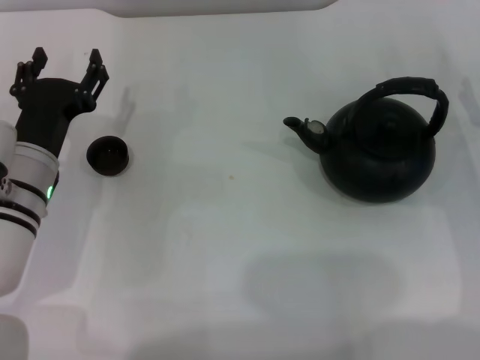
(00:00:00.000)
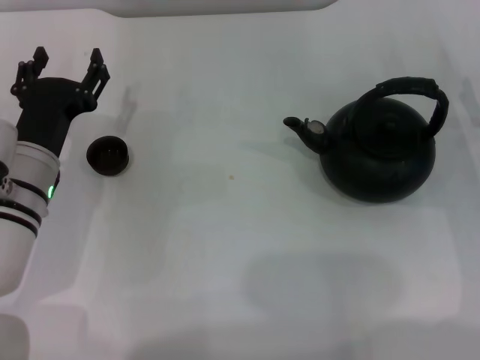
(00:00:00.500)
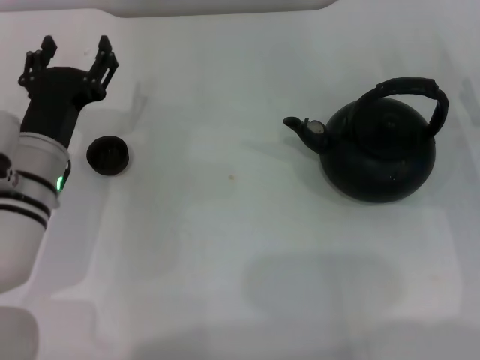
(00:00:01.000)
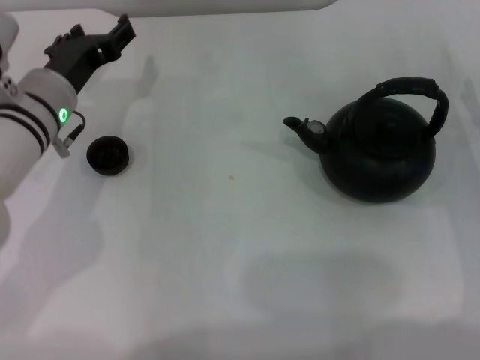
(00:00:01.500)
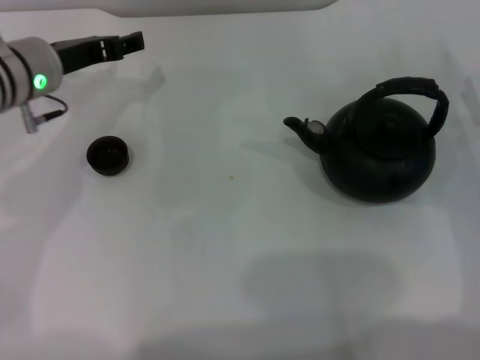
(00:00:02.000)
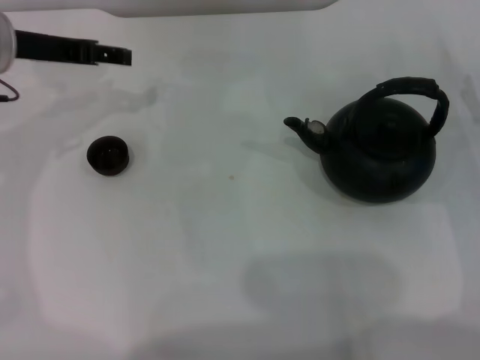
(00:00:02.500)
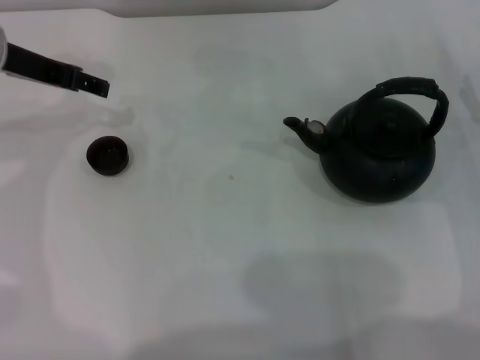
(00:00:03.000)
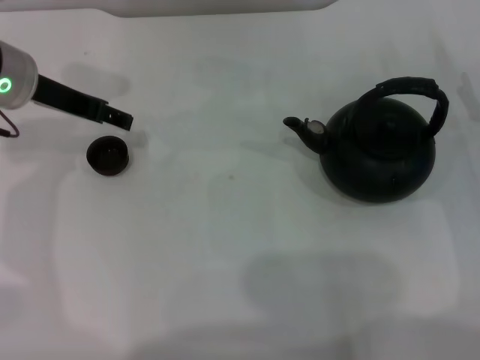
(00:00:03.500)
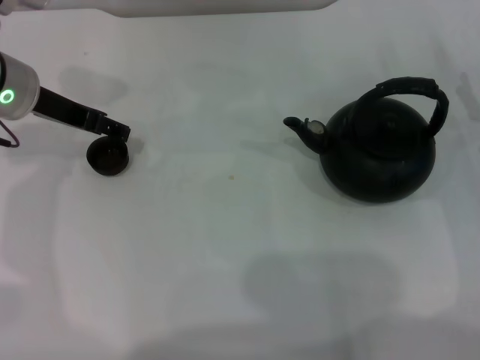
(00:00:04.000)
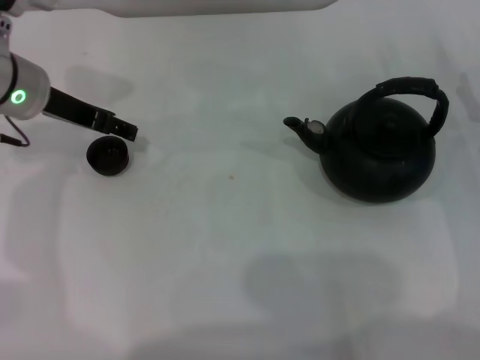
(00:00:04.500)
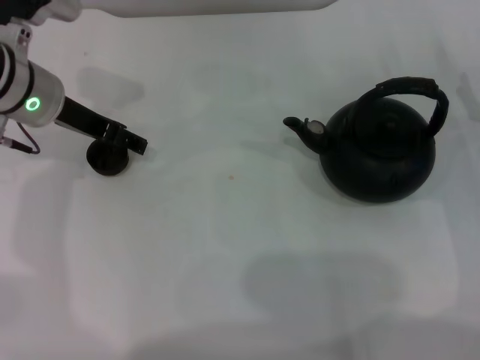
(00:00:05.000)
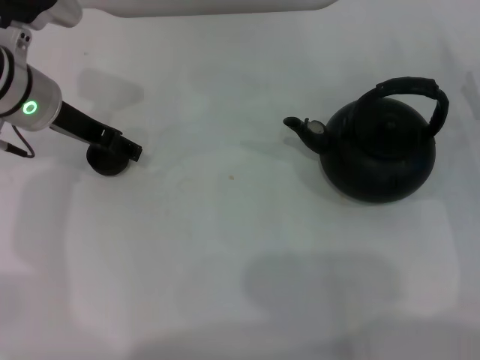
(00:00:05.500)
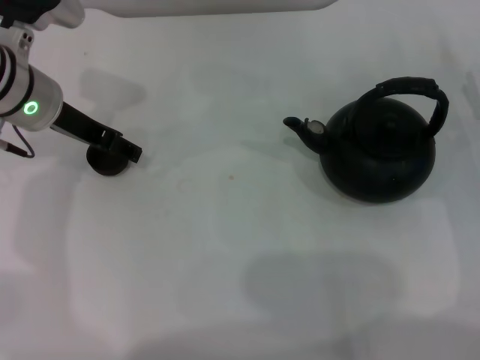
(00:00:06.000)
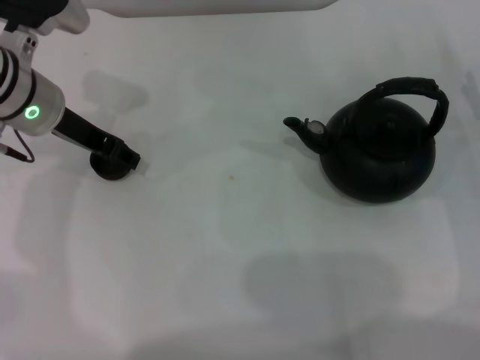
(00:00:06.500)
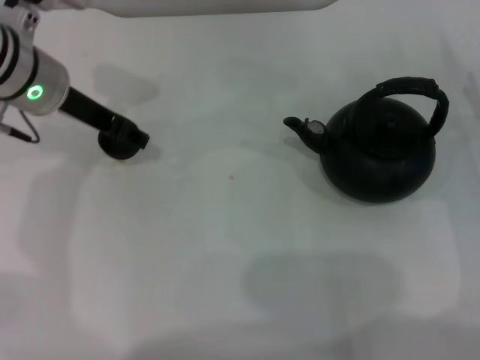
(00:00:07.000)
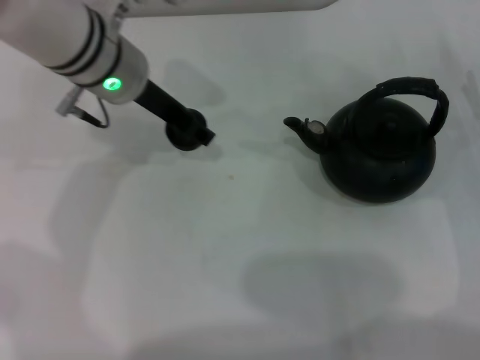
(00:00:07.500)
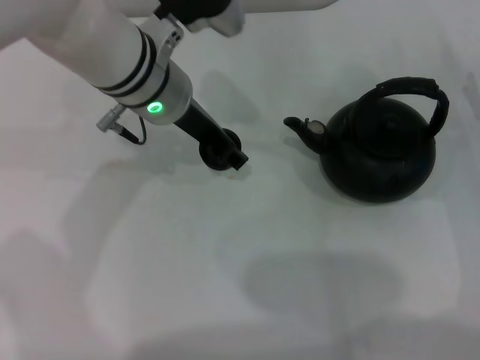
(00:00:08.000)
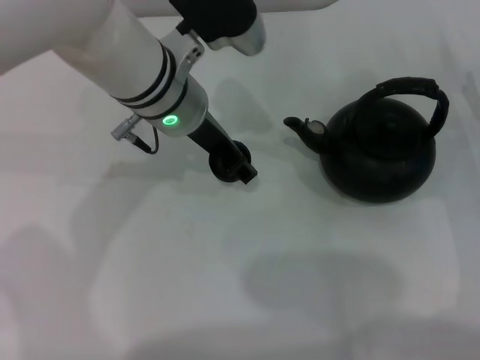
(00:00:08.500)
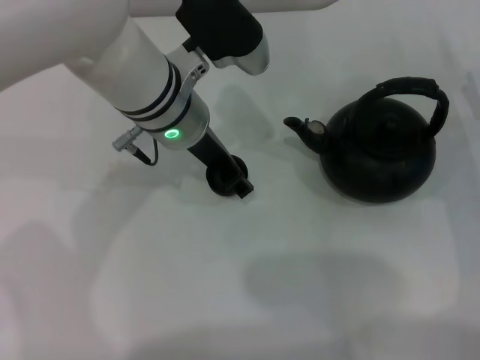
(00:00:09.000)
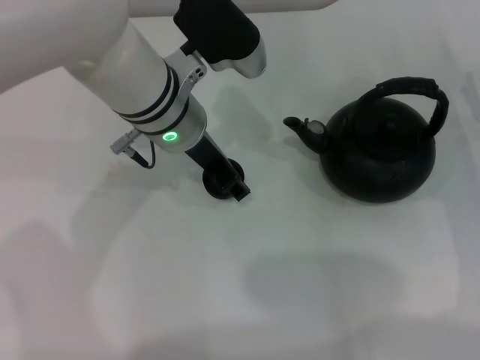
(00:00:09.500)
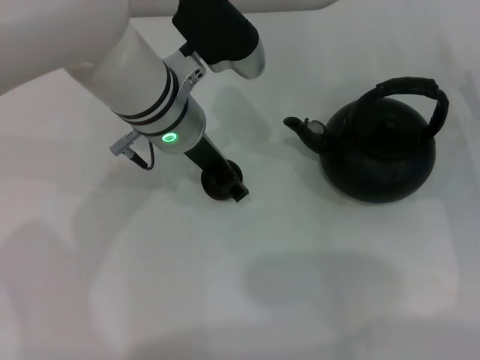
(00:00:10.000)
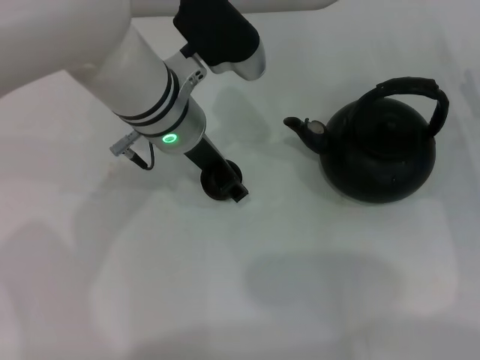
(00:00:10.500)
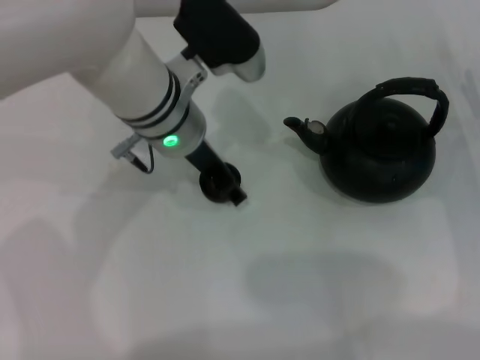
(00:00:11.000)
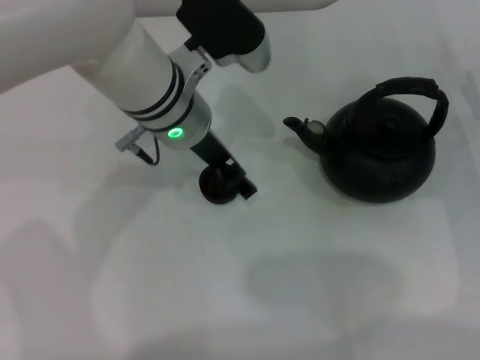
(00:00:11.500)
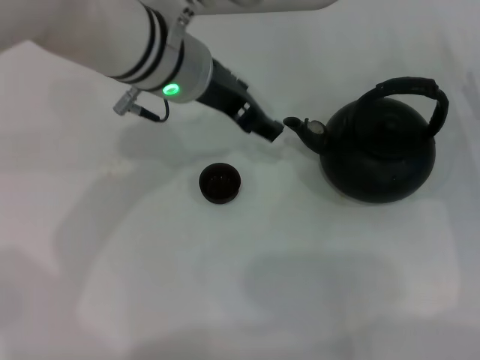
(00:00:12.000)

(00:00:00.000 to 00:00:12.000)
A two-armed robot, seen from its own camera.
Task of the whole recording: Grasp the handle of the teapot with one hand and pour tea into the teacup.
Step, 00:00:00.000 - 00:00:07.000: Pick up the teacup with the left gripper.
Step, 00:00:07.500 - 00:00:11.500: Place the teacup in the center of view with the left gripper.
00:00:00.000 - 00:00:02.000: The left gripper travels forward and upward by about 15 cm.
00:00:04.000 - 00:00:06.000: The grippers move only a little.
00:00:06.000 - 00:00:08.000: The left gripper travels to the right by about 10 cm, and closes up.
00:00:08.000 - 00:00:10.000: The grippers make only small movements.
00:00:10.000 - 00:00:12.000: The left gripper changes place by roughly 5 cm, and opens up.

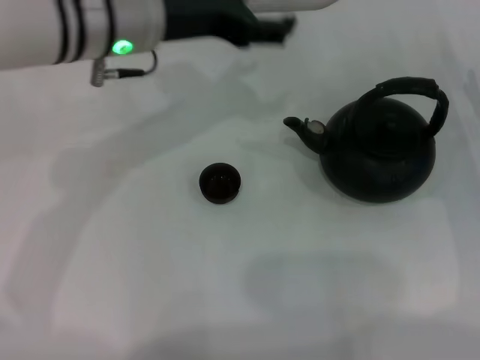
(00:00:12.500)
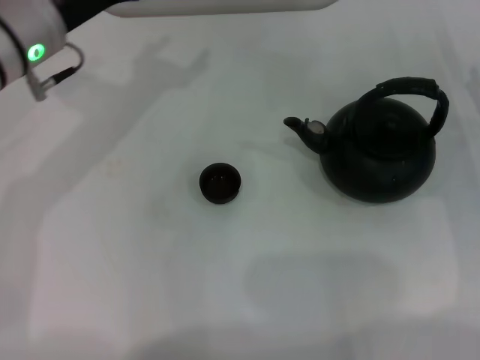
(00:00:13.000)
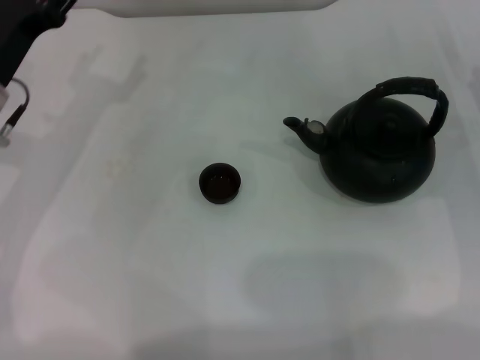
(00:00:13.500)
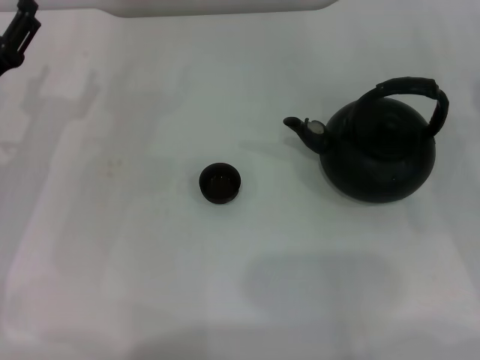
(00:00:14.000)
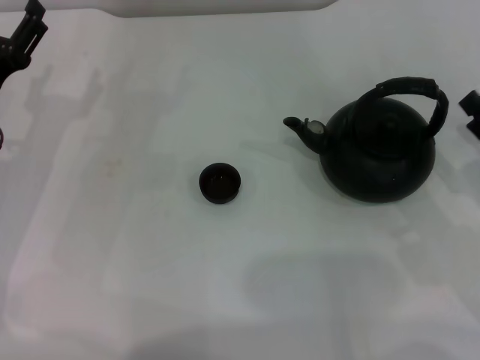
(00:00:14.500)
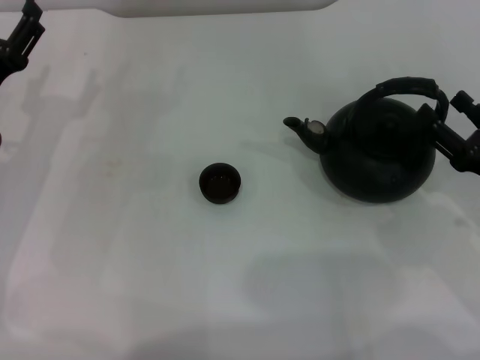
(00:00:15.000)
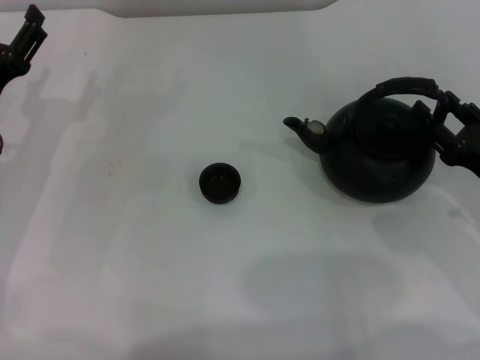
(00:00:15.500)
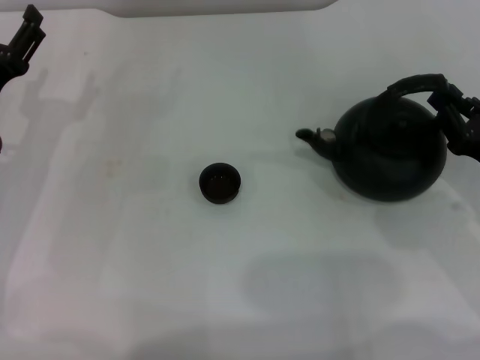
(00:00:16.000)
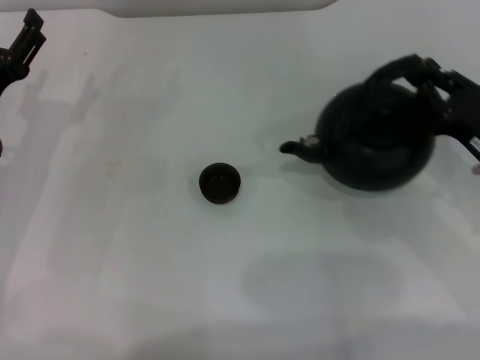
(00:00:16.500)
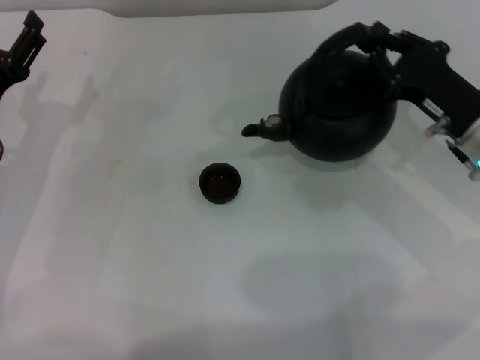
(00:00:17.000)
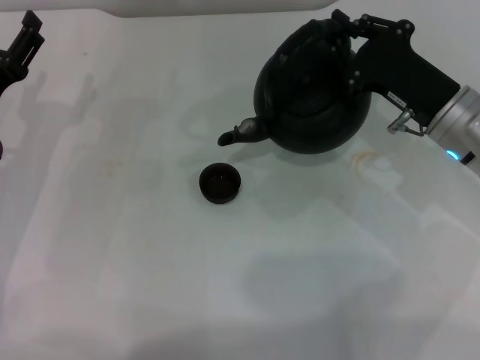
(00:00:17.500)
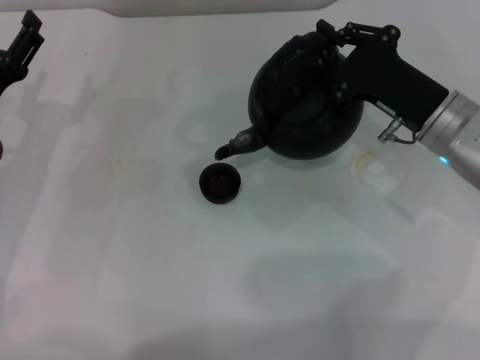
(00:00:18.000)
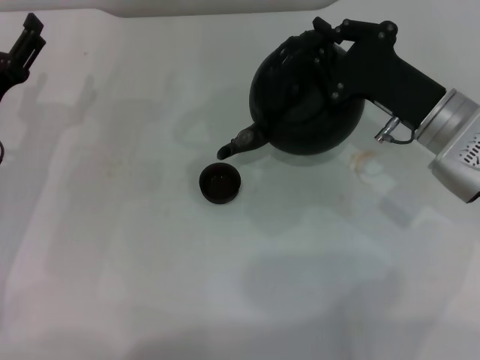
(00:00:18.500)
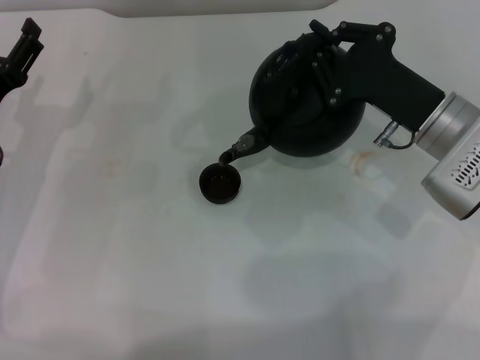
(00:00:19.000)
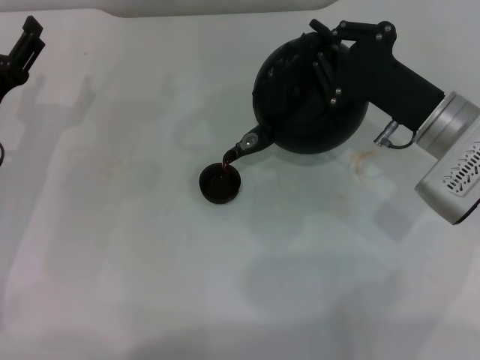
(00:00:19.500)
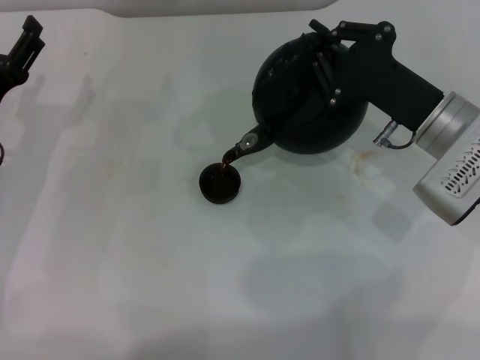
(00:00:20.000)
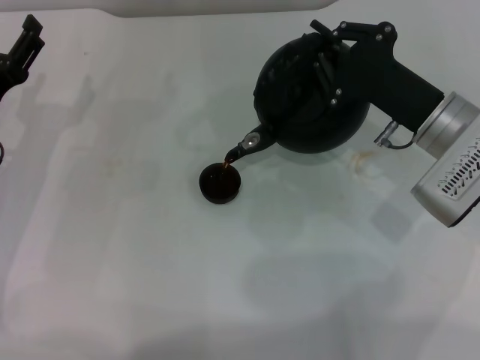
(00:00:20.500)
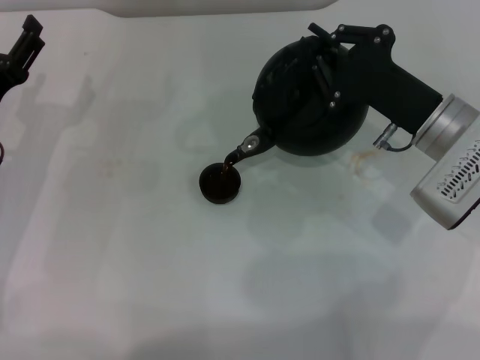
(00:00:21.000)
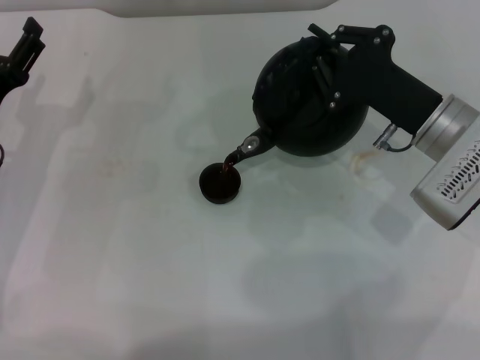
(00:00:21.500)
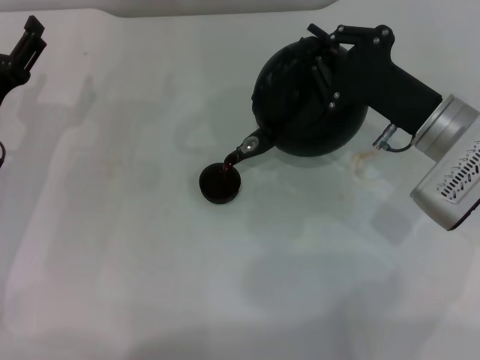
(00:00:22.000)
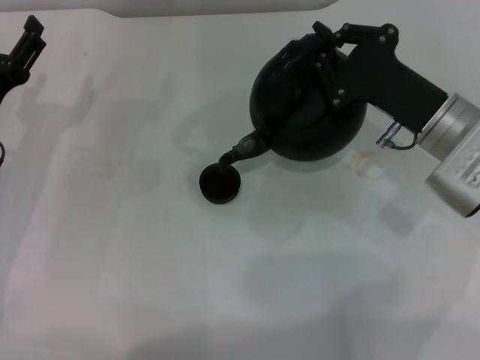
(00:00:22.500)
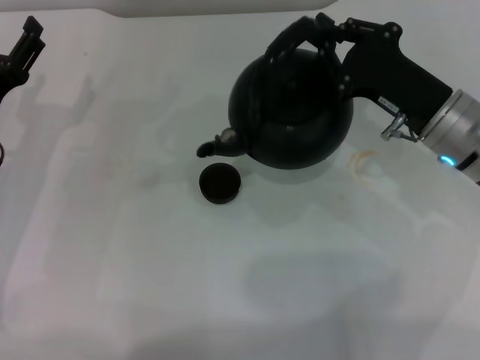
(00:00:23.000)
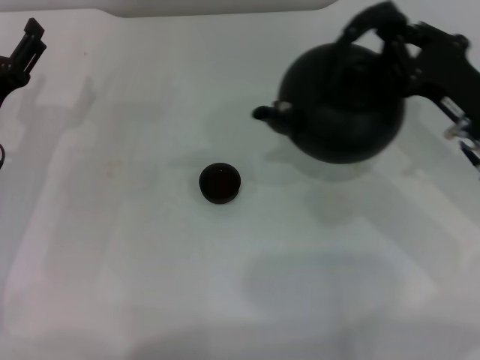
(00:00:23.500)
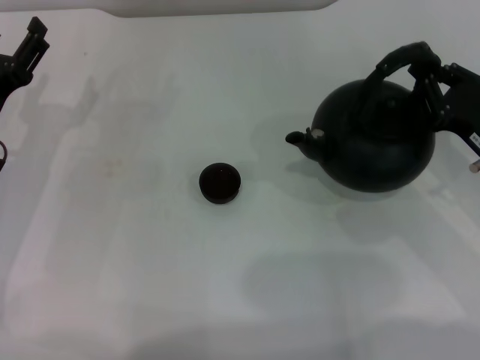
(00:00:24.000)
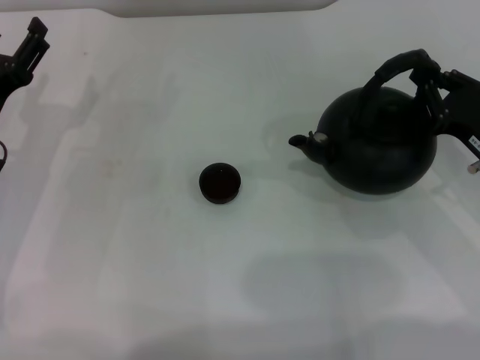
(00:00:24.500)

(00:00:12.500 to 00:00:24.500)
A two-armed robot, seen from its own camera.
Task of the whole recording: Grasp the handle of the teapot with one hand and pour tea into the teacup.
Step, 00:00:12.500 - 00:00:17.000: Pick up the teapot with the right gripper.
Step, 00:00:17.500 - 00:00:22.500: Put down the teapot with the right gripper.
00:00:12.500 - 00:00:14.500: The right gripper moves backward, some 10 cm. Meanwhile the left gripper moves to the left and downward, about 20 cm.
00:00:14.500 - 00:00:16.500: The right gripper travels forward by roughly 5 cm, and closes up.
00:00:16.500 - 00:00:18.500: The right gripper shifts some 10 cm to the left and forward.
00:00:18.500 - 00:00:22.500: There are only small adjustments of the grippers.
00:00:22.500 - 00:00:24.500: The right gripper goes some 10 cm to the right.

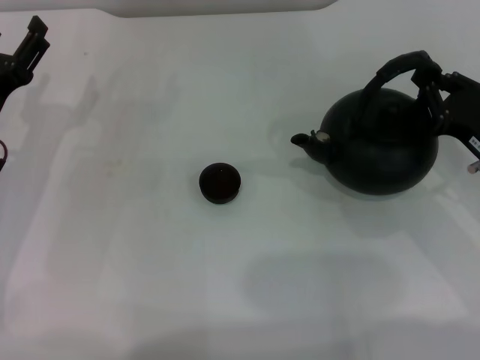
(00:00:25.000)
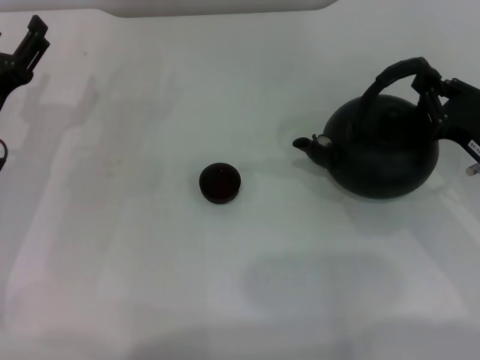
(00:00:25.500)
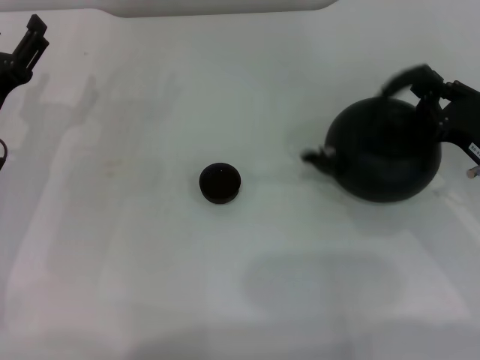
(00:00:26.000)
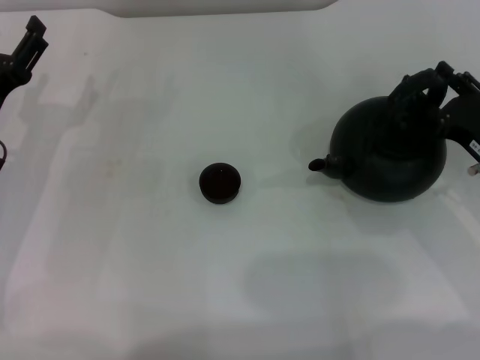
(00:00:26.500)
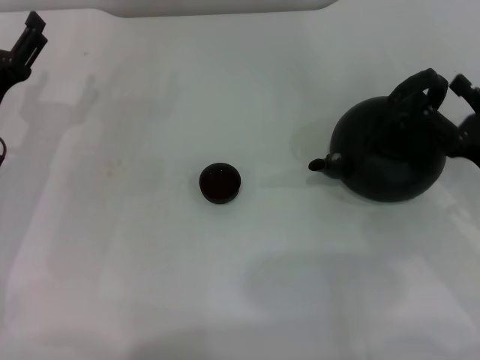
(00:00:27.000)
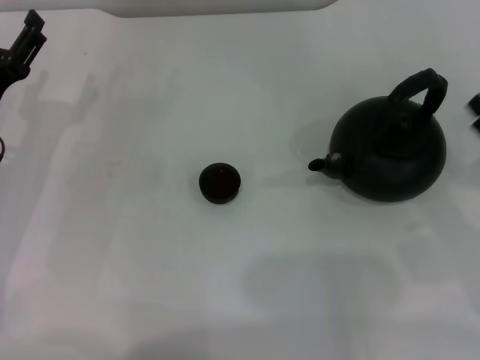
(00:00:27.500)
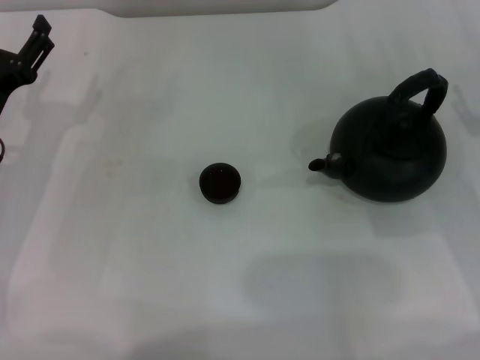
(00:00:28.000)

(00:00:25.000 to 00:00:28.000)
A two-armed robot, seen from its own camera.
Task of the whole recording: Grasp the handle of the teapot with one hand and pour tea into the teacup.
Step, 00:00:25.000 - 00:00:27.000: Put down the teapot with the right gripper.
00:00:25.000 - 00:00:26.500: The two grippers keep their place.
00:00:26.500 - 00:00:28.000: The right gripper opens.
